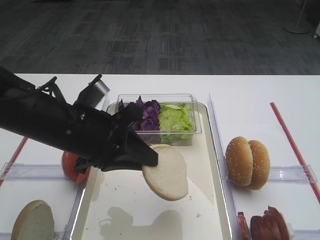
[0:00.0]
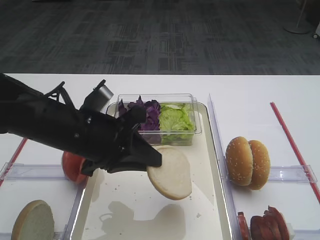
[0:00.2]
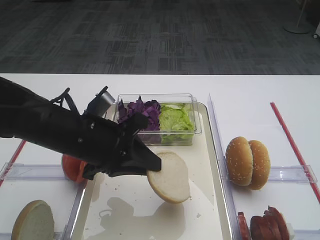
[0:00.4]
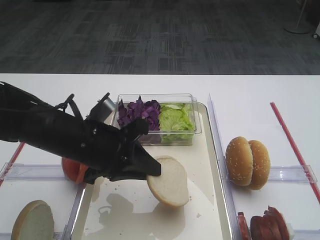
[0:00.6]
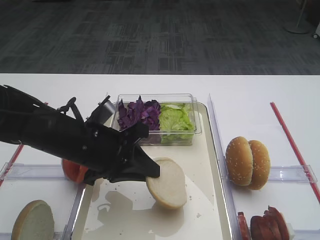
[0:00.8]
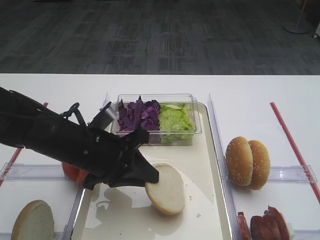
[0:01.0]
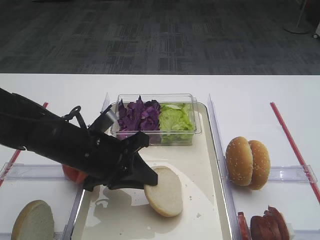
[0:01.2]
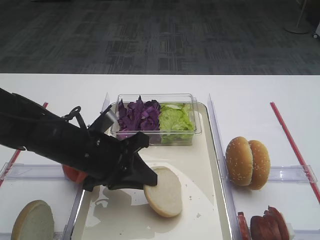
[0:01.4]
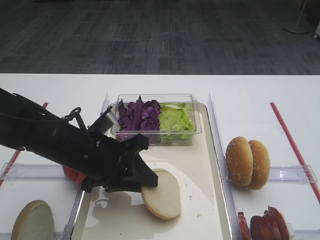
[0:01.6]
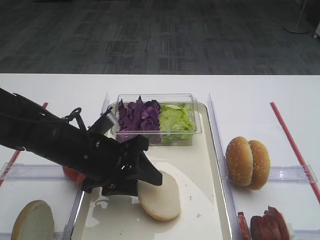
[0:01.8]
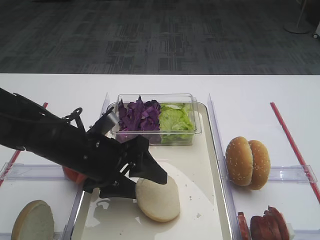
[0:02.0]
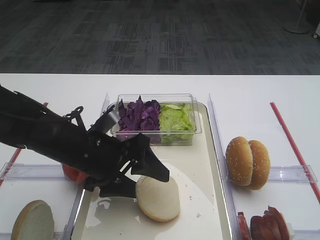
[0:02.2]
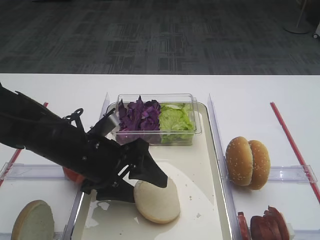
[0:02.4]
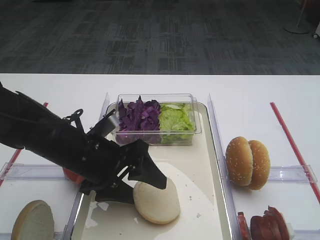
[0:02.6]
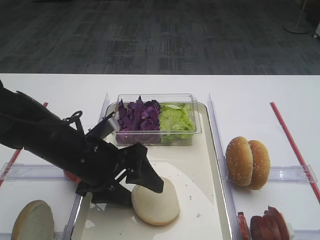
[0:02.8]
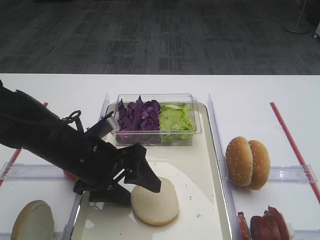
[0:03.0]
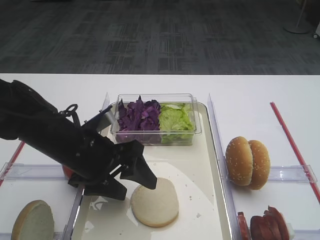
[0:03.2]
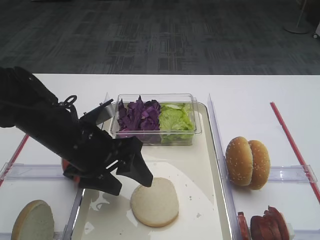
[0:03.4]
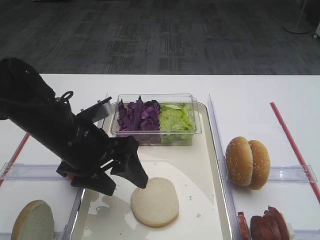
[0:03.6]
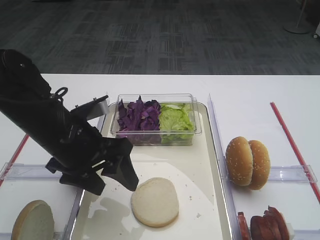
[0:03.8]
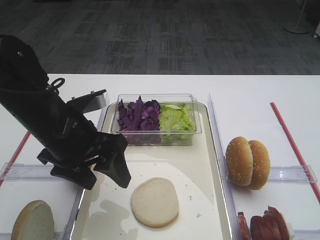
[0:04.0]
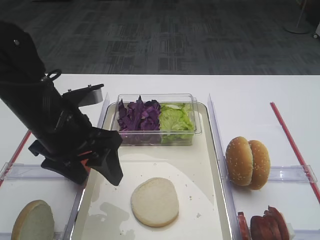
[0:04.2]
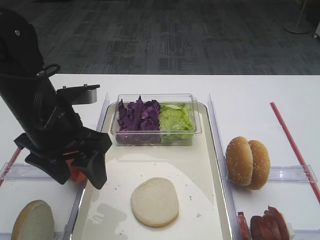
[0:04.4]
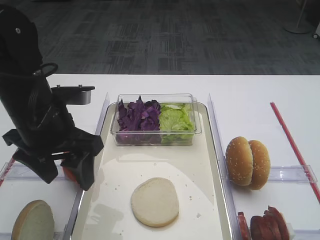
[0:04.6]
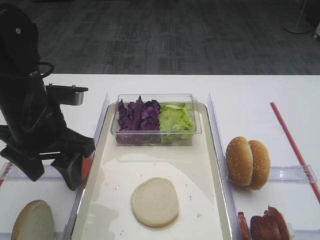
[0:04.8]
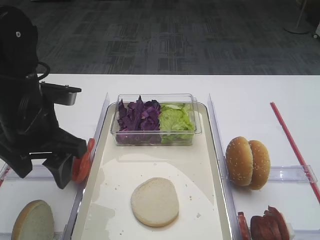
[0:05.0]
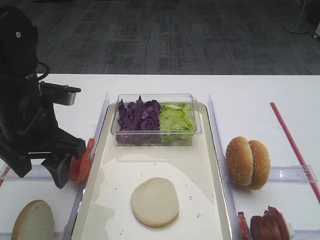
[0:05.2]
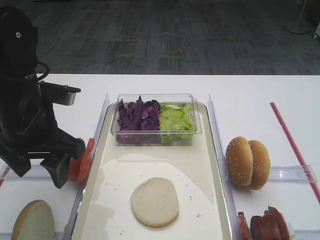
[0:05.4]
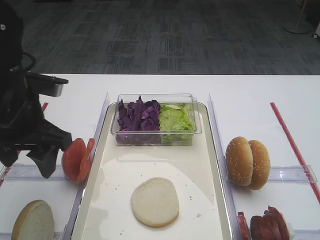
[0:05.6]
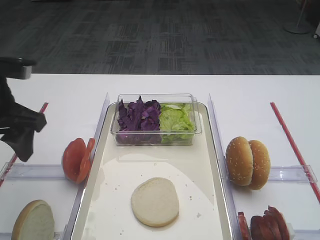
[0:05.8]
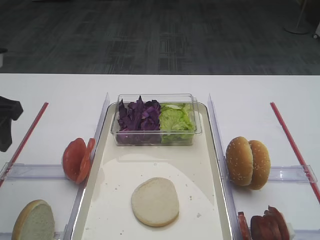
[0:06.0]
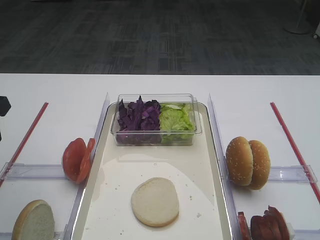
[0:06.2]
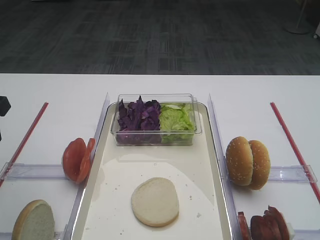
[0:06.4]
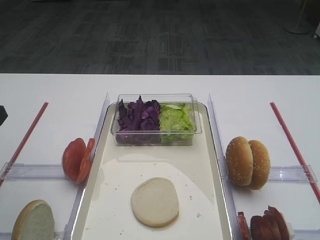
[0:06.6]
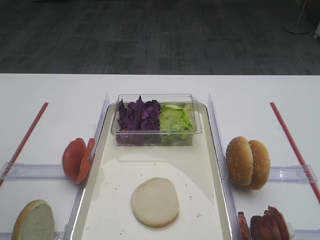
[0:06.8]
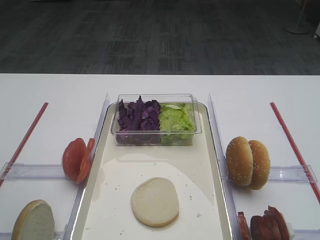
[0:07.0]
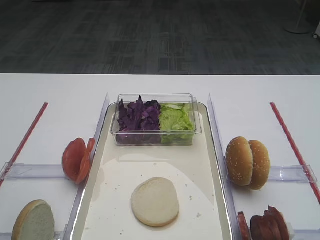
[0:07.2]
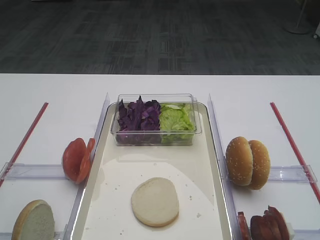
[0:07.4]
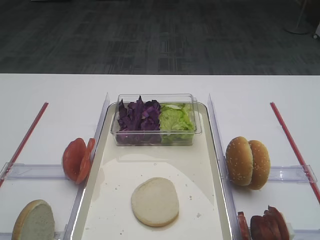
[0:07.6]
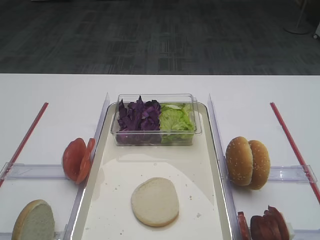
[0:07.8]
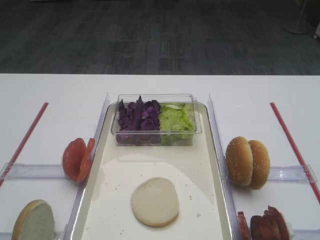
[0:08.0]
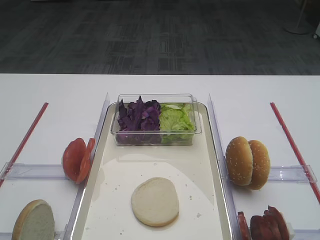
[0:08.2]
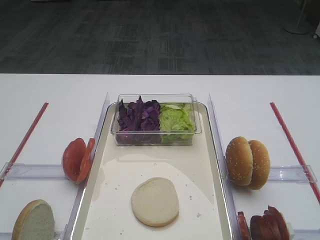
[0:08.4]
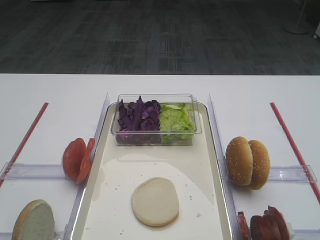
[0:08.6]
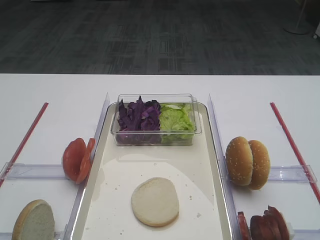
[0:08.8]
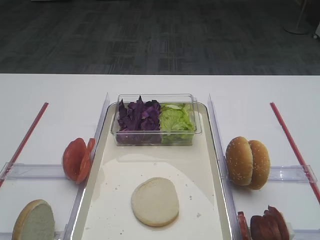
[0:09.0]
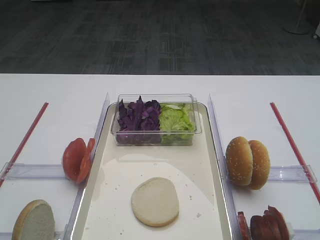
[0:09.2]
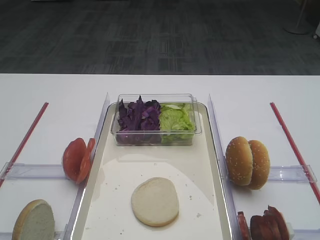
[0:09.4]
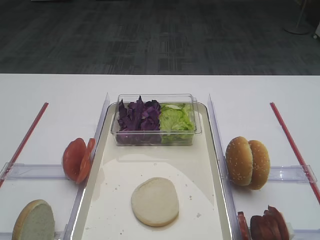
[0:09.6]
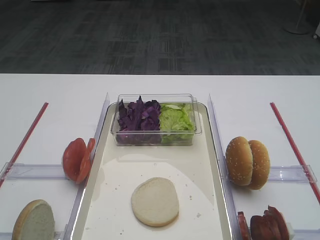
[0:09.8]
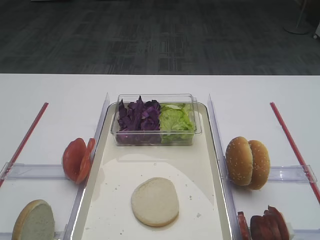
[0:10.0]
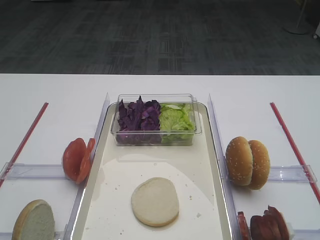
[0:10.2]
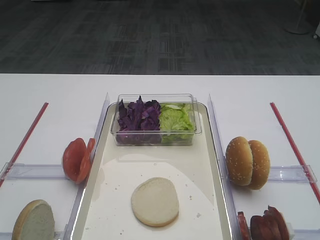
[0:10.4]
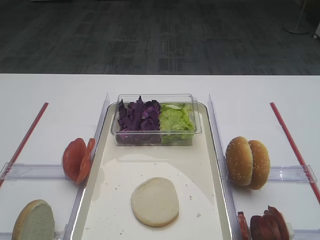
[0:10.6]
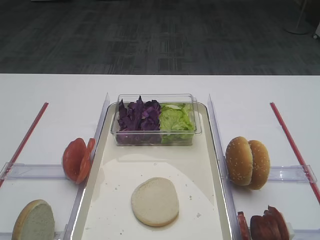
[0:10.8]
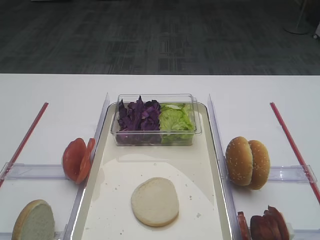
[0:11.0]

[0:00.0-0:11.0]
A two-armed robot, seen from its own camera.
Step, 0:00.0 to 0:03.8: Place the bread slice on the tray with the left gripper.
0:00.0 to 0:01.6: The left gripper heads downward, covering some 5 cm.
0:01.6 to 0:03.2: The left gripper opens its fingers.
0:03.2 to 0:04.8: The left gripper moves upward and to the left, roughly 10 cm.
0:04.8 to 0:06.2: The left gripper moves to the left and upward, some 10 cm.
0:06.2 to 0:07.8: The left gripper travels backward by approximately 20 cm.
0:09.4 to 0:11.0: Both grippers stay put.

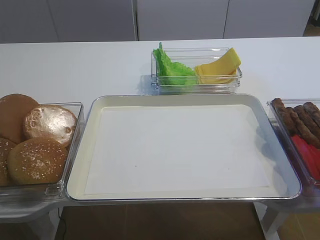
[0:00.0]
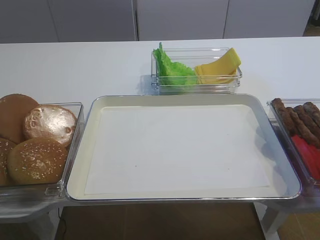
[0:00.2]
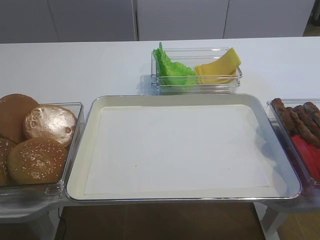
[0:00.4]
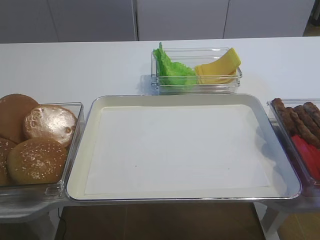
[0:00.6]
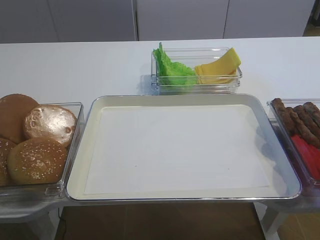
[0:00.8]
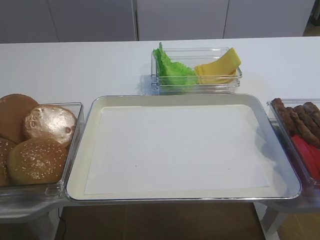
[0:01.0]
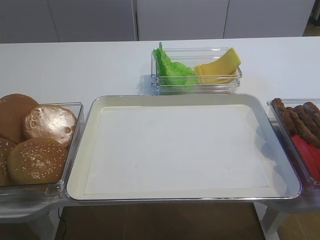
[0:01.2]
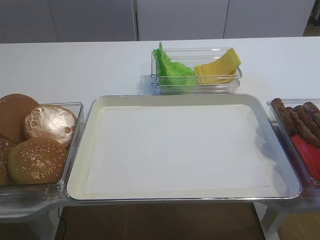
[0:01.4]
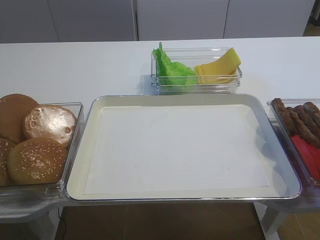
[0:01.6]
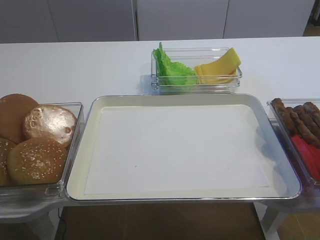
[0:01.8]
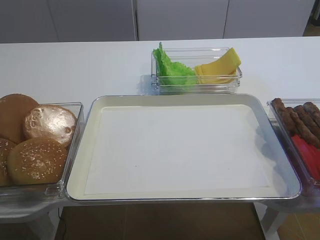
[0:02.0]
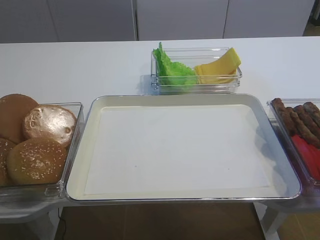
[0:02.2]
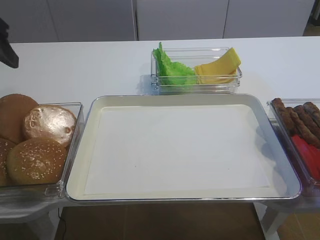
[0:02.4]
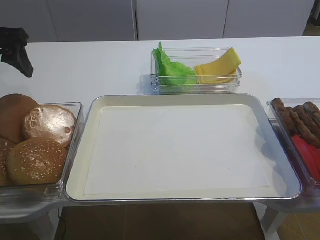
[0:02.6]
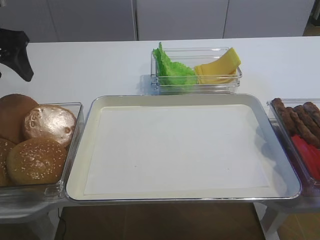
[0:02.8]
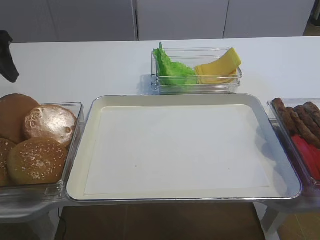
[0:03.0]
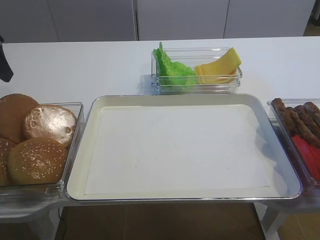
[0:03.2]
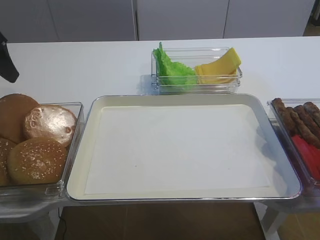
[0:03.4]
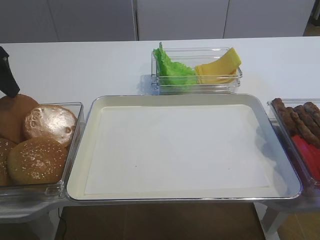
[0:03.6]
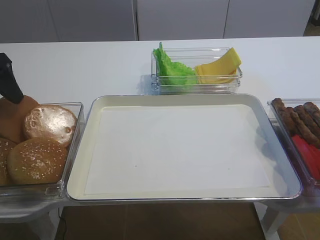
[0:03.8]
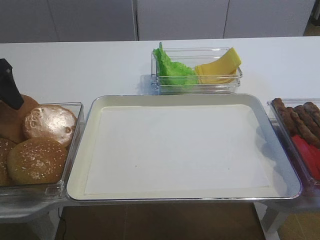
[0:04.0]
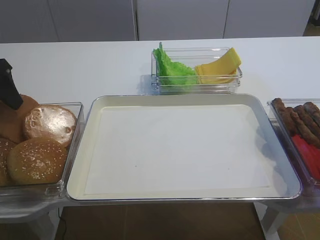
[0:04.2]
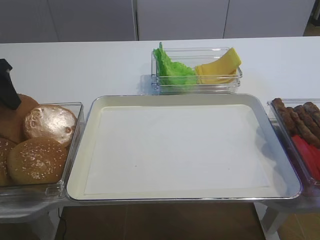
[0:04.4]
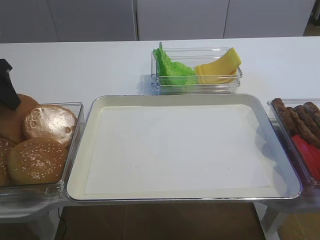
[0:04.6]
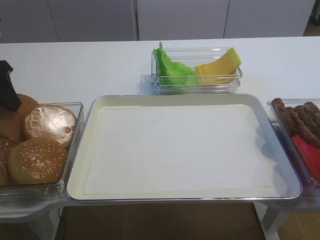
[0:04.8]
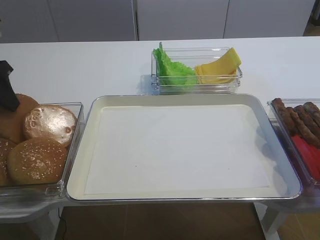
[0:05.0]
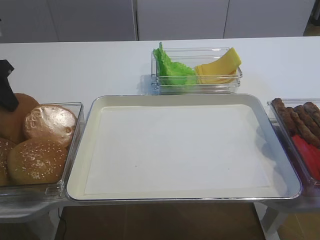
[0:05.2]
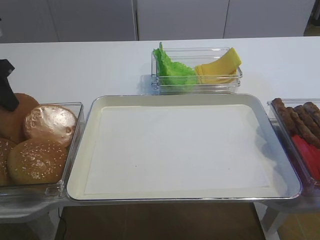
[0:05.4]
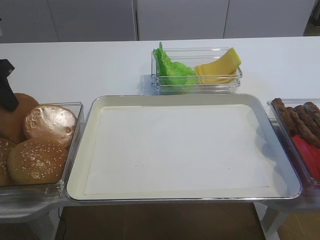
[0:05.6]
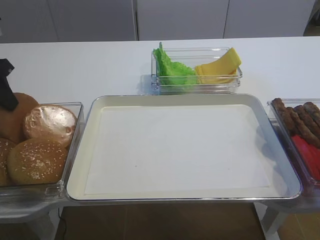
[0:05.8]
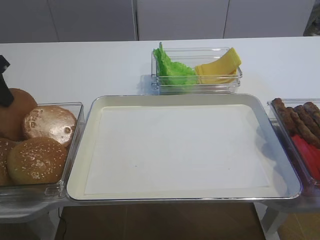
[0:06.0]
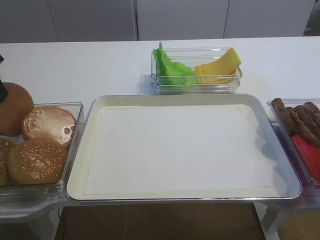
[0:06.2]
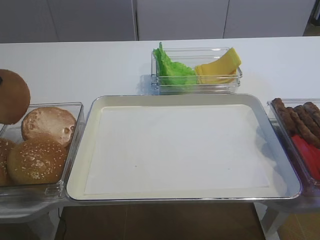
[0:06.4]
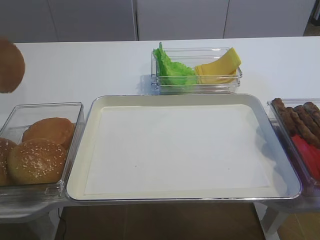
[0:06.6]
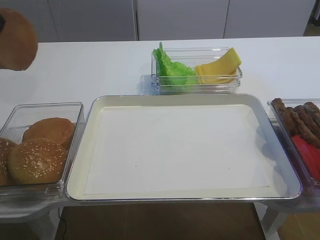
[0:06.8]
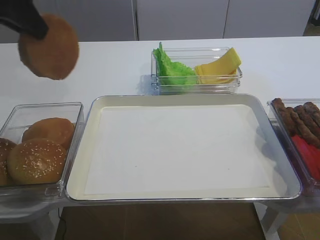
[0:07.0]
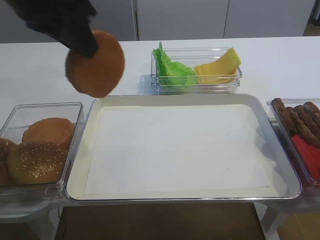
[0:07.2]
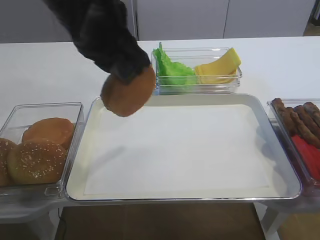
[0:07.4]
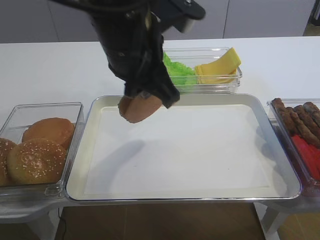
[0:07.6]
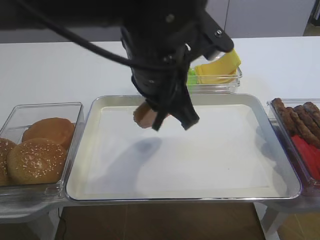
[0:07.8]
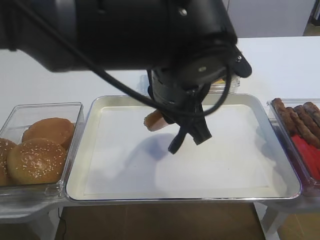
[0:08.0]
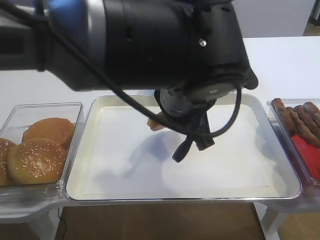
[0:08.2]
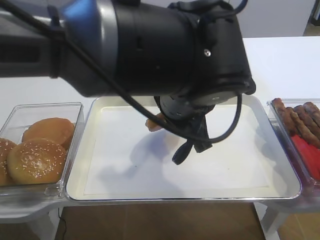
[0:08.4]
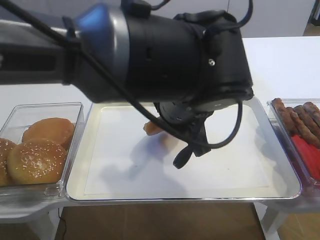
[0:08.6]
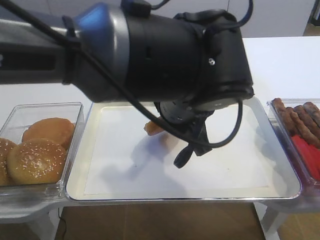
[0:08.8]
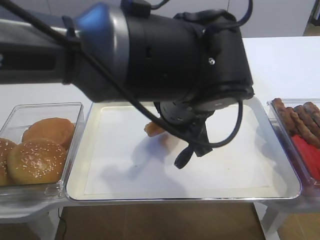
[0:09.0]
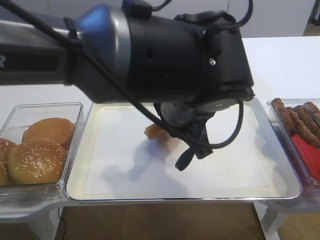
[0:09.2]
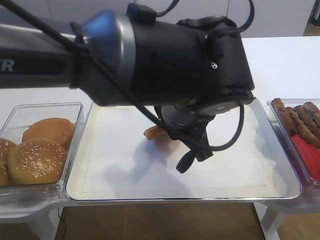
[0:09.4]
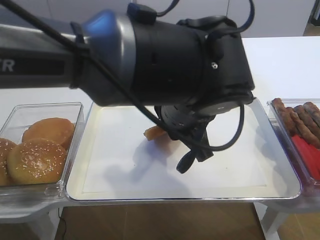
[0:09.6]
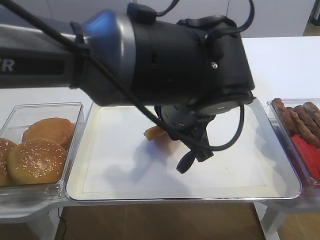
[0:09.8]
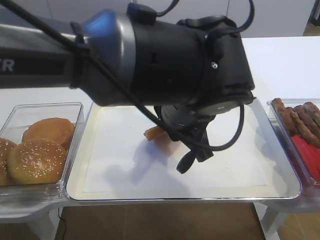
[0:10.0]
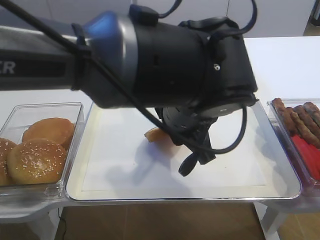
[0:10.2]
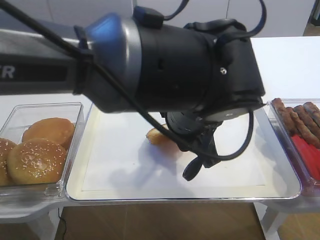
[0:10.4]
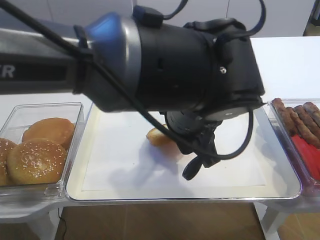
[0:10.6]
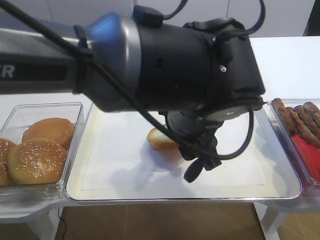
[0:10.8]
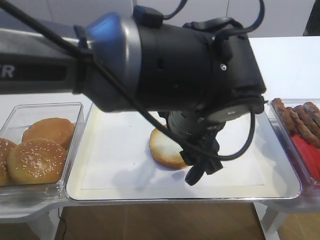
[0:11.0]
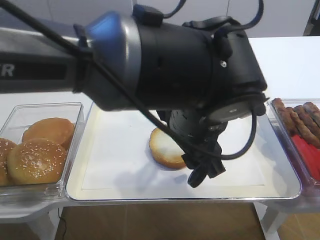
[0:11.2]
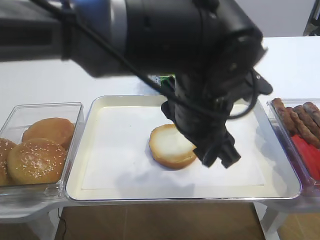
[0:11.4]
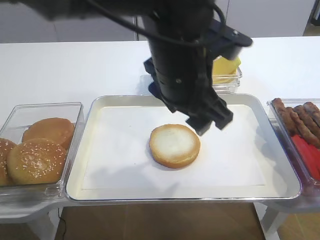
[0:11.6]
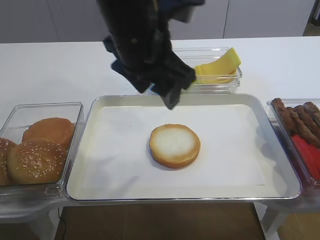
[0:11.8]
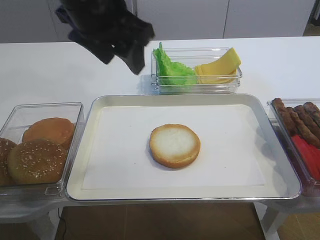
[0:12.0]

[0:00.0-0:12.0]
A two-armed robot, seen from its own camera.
Step, 0:00.0 to 0:06.6: Pick up the bread slice with the left gripper.
Step, 0:07.0 to 0:11.6: Place the bread slice on the tray with the left gripper.
0:01.6 to 0:03.0: The left gripper moves forward, approximately 30 cm.
0:03.0 to 0:04.4: The grippers make only small movements.
0:04.4 to 0:06.0: The left gripper closes.
0:06.0 to 0:07.6: The left gripper shifts roughly 25 cm to the right.
0:07.6 to 0:09.0: The left gripper moves to the right and downward, approximately 10 cm.
0:09.0 to 0:10.4: The left gripper opens up.
0:10.4 to 0:12.0: The left gripper moves to the left, upward and forward, approximately 20 cm, and opens its fingers.
